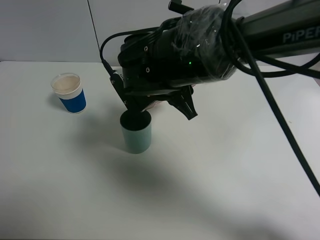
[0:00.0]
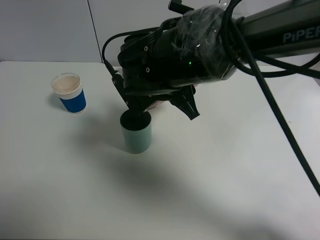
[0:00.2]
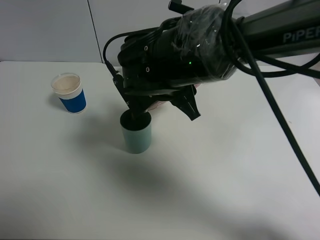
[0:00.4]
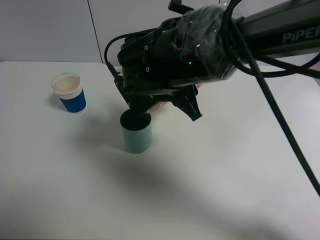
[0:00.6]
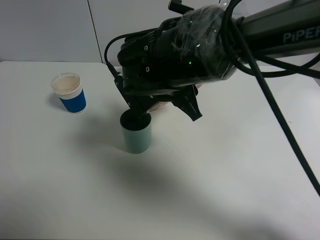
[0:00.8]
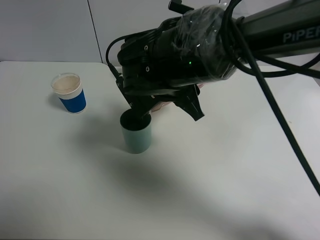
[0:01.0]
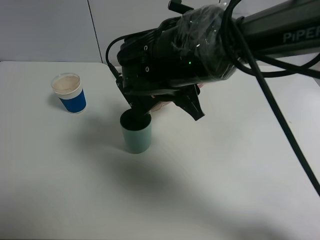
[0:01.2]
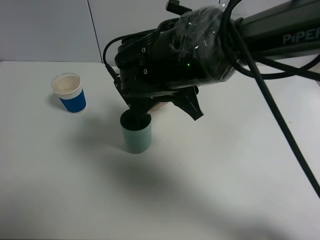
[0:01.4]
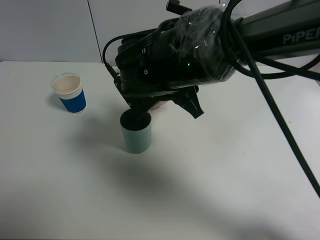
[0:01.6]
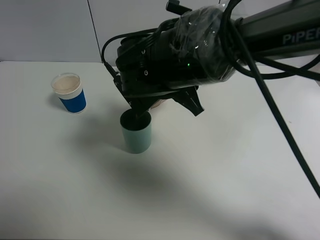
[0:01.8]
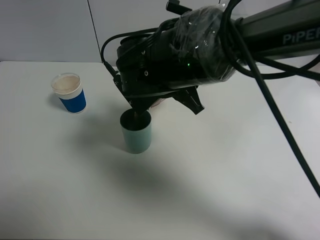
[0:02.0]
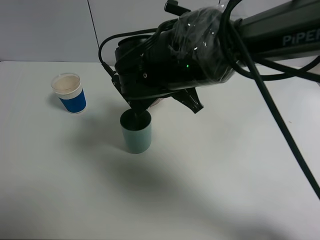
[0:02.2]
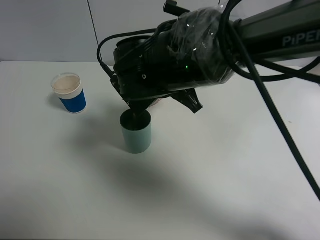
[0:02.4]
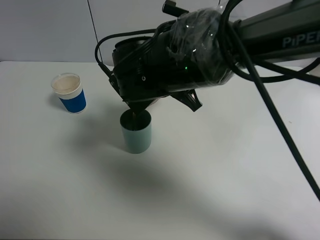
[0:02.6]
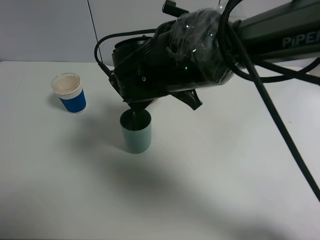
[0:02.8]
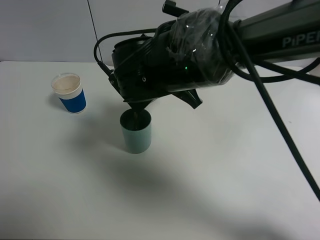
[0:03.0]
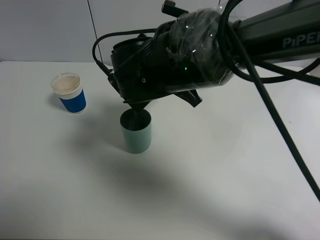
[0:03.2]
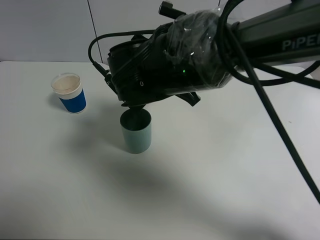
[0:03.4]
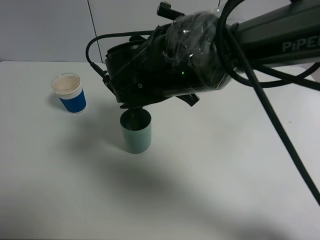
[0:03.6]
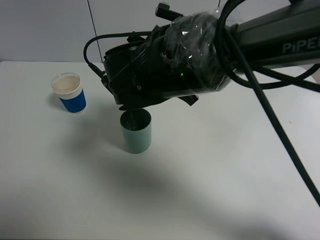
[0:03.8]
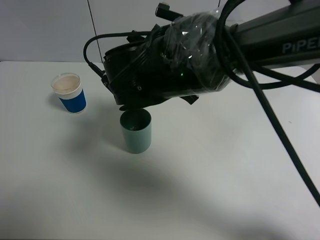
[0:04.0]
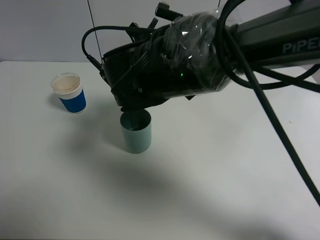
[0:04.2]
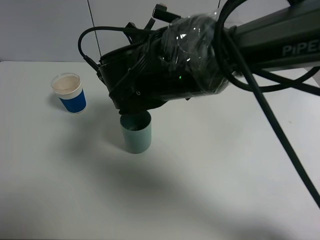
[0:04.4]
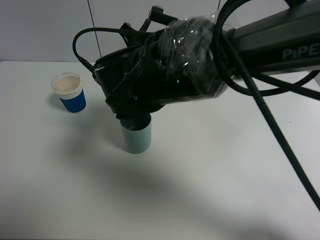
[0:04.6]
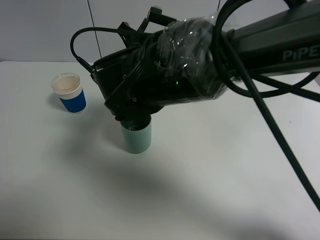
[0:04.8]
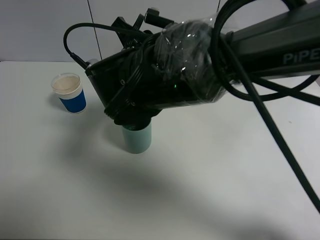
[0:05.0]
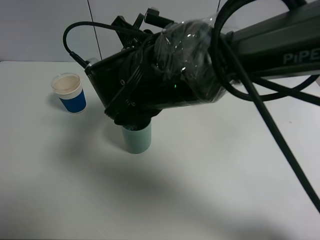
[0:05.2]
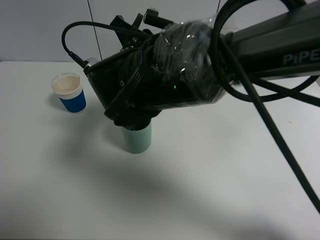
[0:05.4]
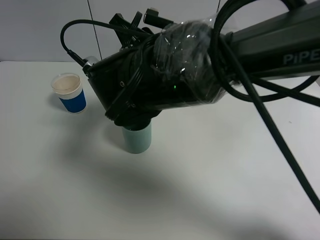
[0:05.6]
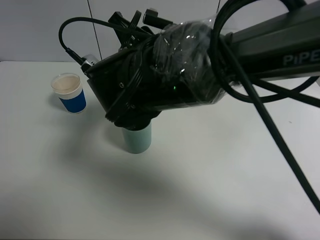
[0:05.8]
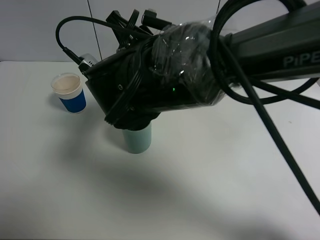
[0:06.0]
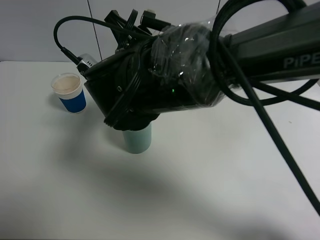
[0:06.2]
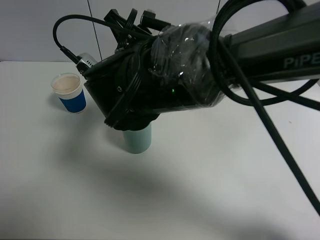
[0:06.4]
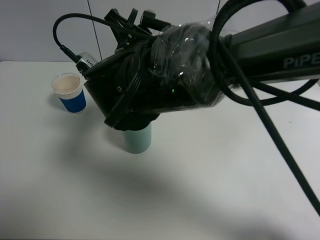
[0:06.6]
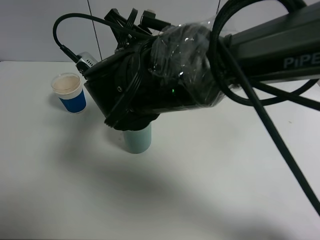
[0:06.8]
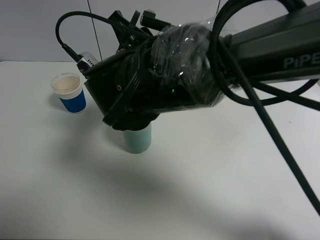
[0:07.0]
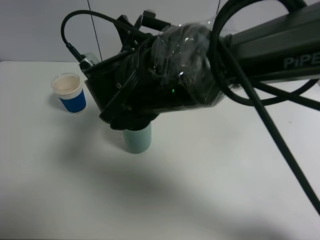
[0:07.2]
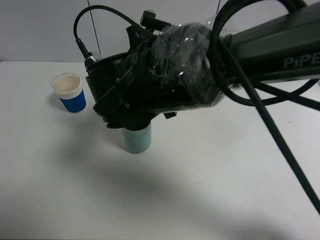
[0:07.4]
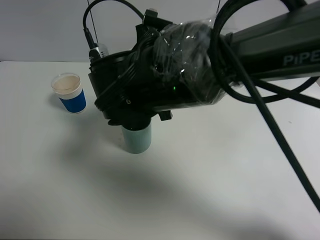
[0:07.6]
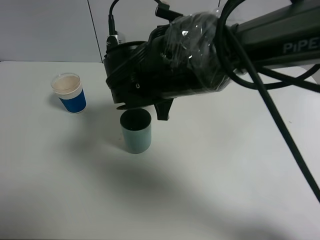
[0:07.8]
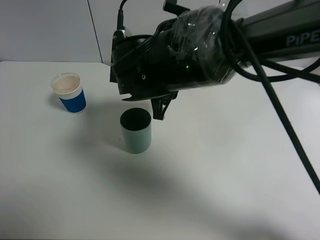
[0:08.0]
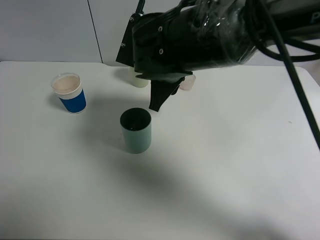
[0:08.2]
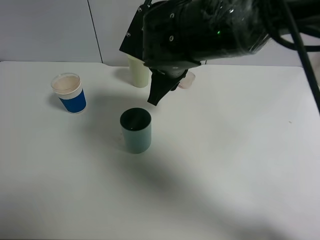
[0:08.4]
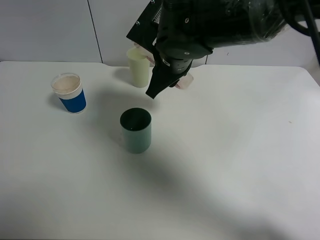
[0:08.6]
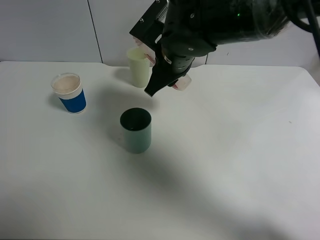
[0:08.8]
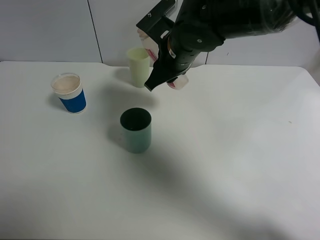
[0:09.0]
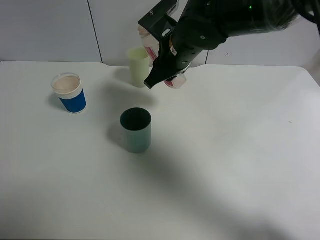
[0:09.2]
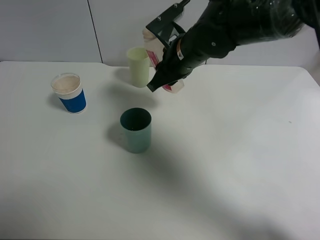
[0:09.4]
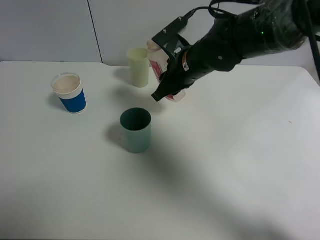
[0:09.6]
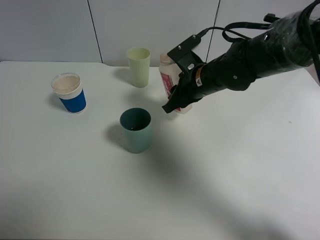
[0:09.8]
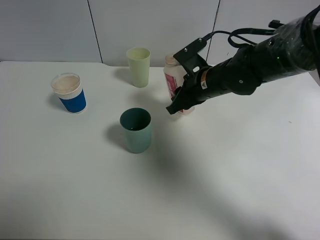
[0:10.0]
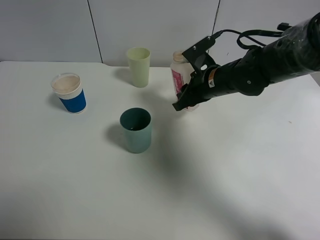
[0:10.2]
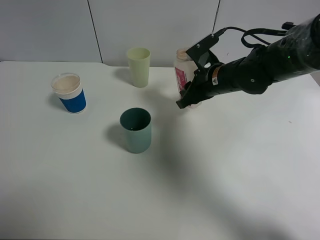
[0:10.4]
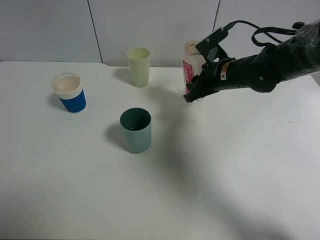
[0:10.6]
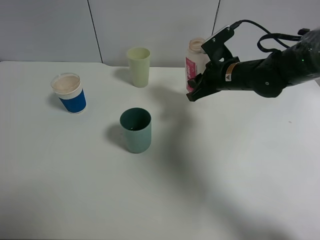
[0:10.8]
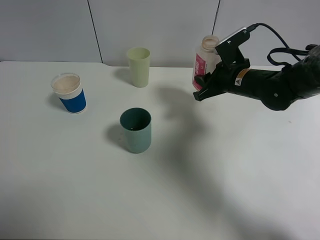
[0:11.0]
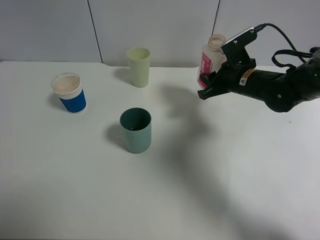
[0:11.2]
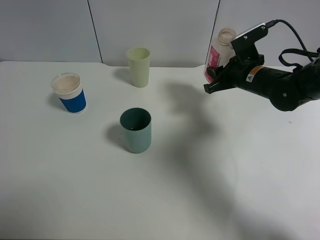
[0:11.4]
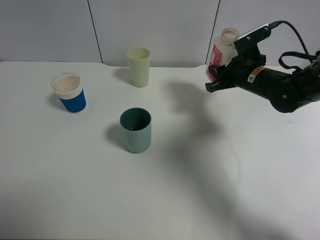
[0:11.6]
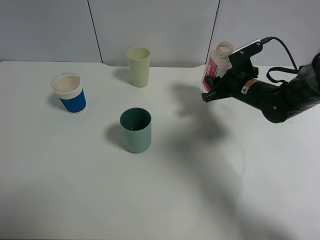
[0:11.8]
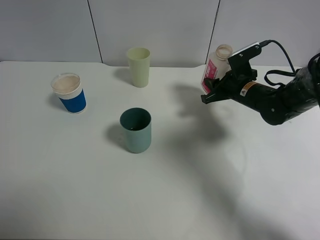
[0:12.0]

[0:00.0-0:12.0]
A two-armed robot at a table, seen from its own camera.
Task of the whole recording: use a clamp to hold the bottle of the drink, pour the beverage into a random cup, then clamp the cup containing the drink and pour the drink into another random cup.
Step, 0:00.0 to 0:06.6: Pour the drink into the blue plastic cup with right gripper.
0:00.0 to 0:01.6: Neither gripper changes place.
0:01.6 to 0:04.4: The grippers make only small movements.
0:04.4 to 0:06.0: The grippers make only small movements.
0:07.6 to 0:09.0: The right gripper shifts roughly 10 cm forward and to the right.
0:09.0 to 0:10.4: The right gripper moves to the right and downward, roughly 10 cm.
0:10.4 to 0:12.0: The right gripper travels to the right by about 10 cm.

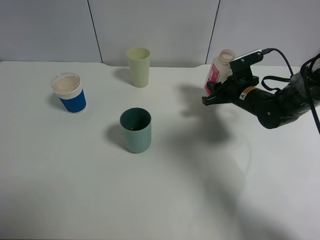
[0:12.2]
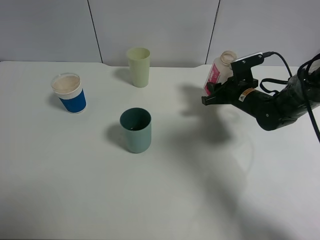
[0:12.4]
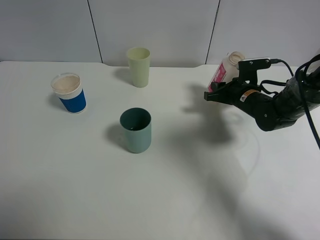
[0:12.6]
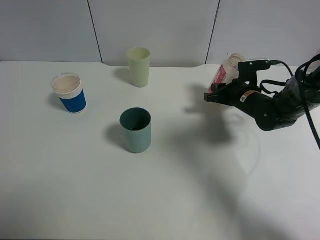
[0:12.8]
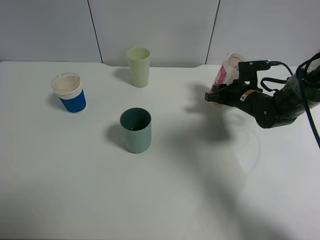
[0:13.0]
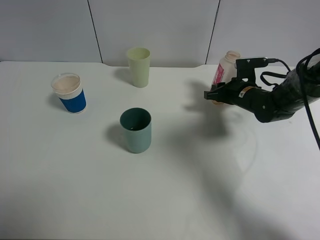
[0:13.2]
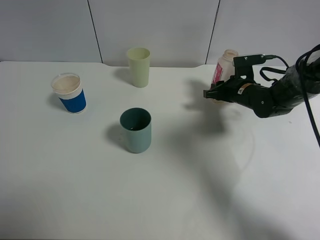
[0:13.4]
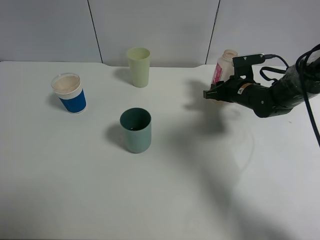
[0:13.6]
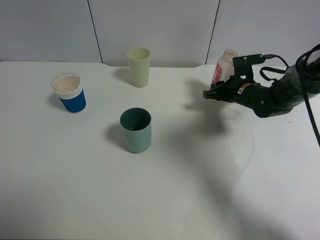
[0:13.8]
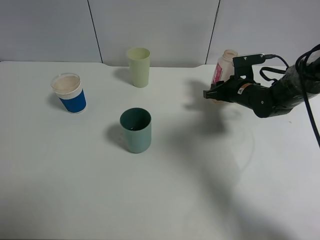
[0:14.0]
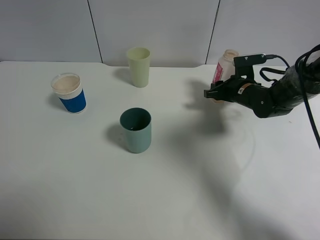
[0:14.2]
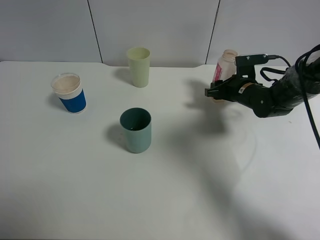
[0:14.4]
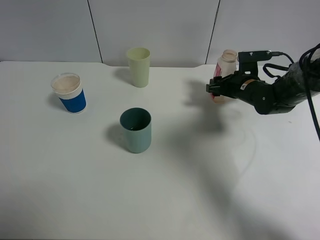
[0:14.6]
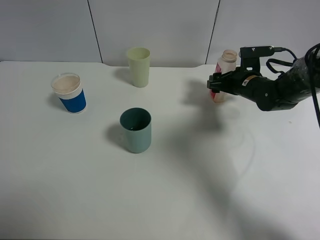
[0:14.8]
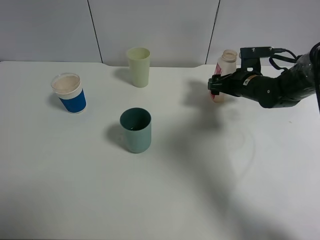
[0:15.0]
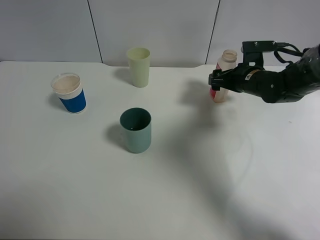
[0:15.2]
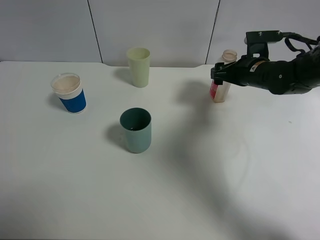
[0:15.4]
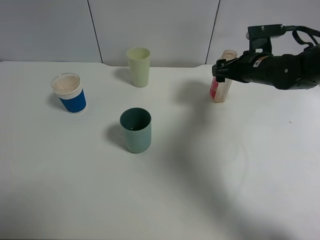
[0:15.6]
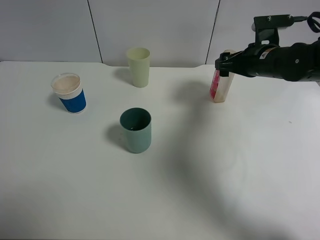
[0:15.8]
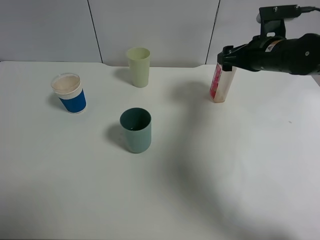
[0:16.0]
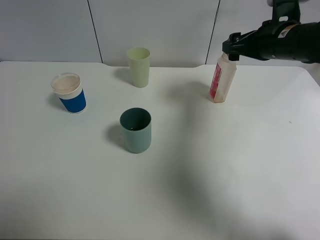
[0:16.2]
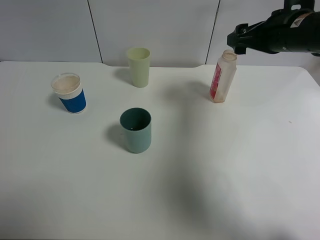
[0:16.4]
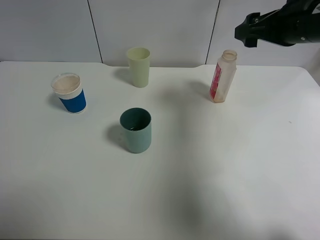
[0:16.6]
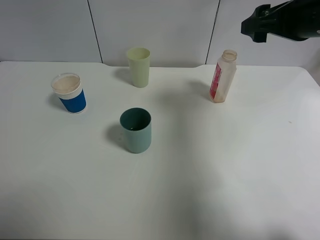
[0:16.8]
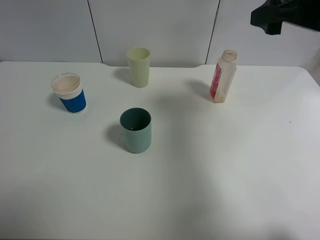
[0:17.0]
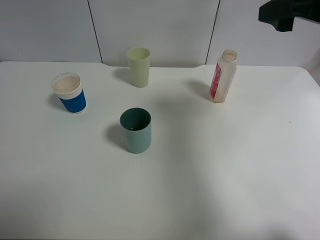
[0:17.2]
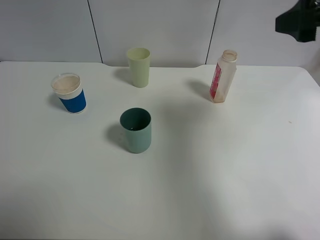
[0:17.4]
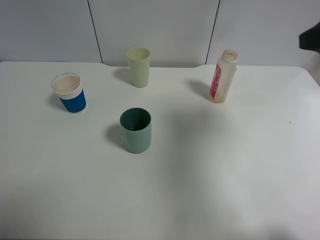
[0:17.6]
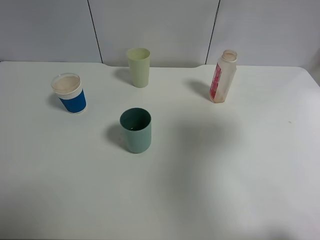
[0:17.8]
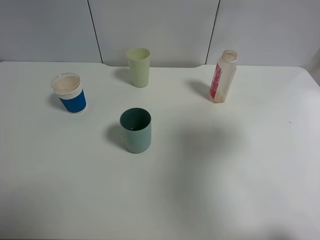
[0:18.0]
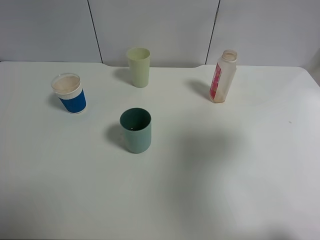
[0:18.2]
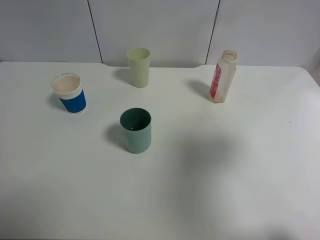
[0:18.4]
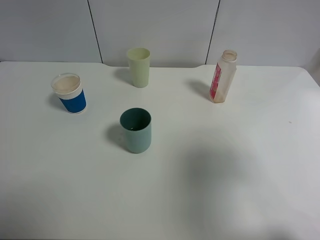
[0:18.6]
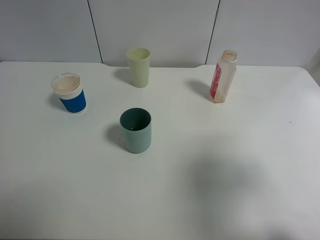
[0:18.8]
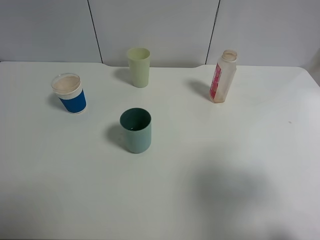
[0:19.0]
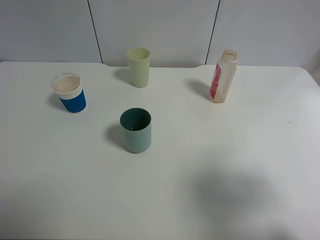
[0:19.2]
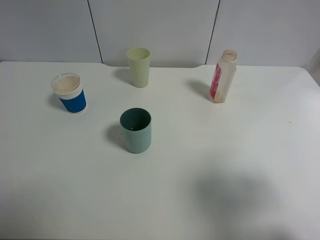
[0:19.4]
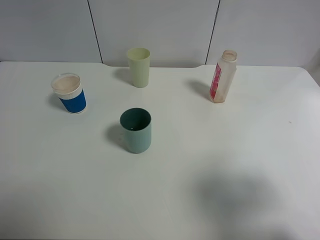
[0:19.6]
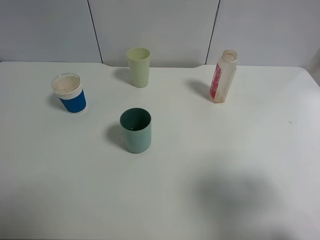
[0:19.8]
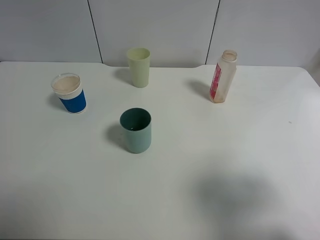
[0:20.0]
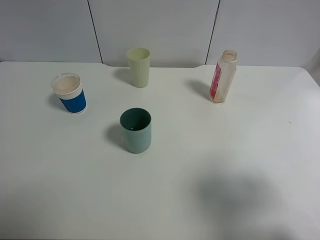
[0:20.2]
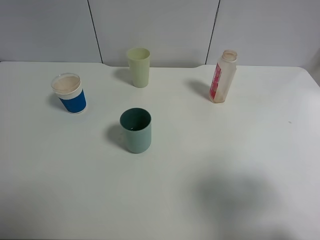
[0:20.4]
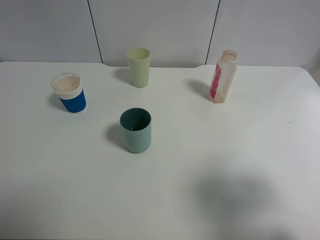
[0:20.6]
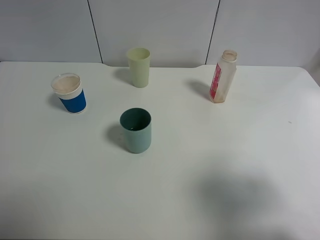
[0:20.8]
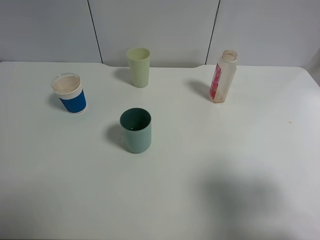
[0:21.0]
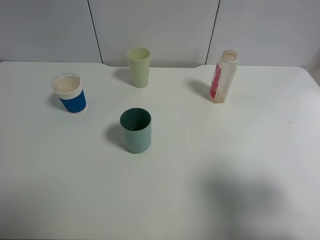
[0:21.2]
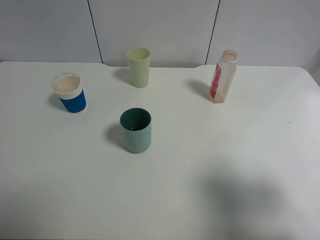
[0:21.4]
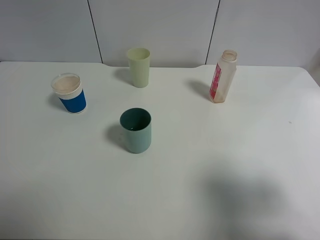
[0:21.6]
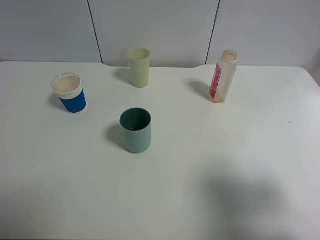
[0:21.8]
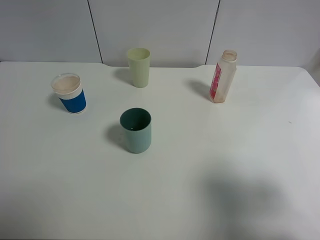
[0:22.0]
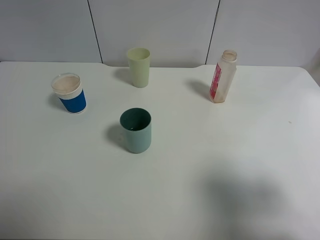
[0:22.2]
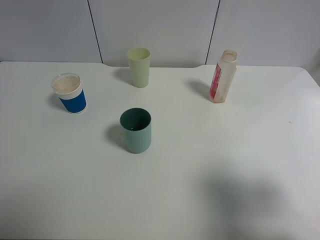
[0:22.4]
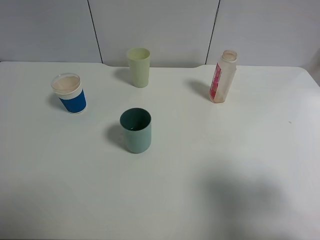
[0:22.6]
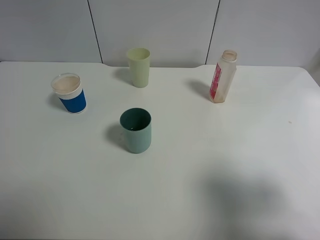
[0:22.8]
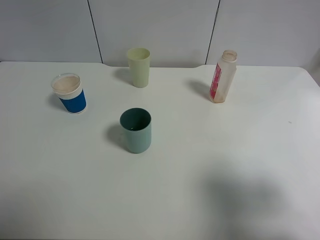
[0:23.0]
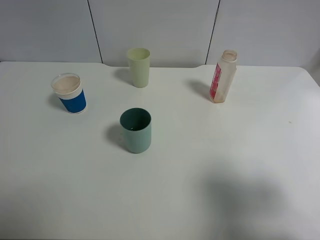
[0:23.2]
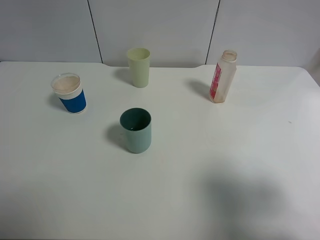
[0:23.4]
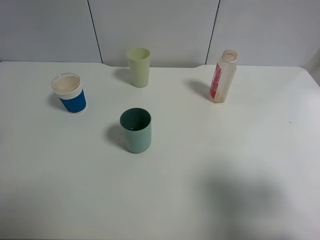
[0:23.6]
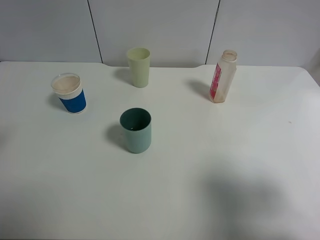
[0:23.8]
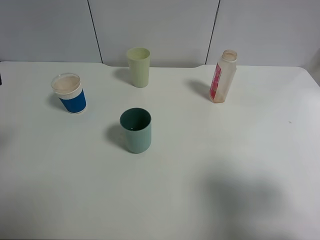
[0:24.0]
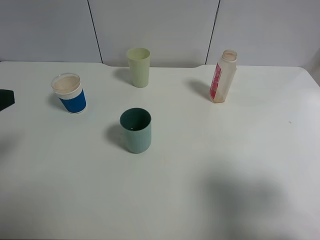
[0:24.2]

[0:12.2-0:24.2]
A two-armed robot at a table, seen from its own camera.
Task of the whole recording: use a clamp to hold the bottle of the drink, pour the beverage into a random cup, then clamp the cup containing the drink and pour the drink into another random cup.
Step, 0:12.2 to 0:14.6: Place the drink bottle on the table with right gripper.
0:12.2 to 0:13.8: The grippers stay close to where they were, moving slightly.
0:13.8 to 0:15.2: The right gripper opens.
0:15.2 to 0:16.6: The right gripper moves upward and backward, approximately 20 cm.
0:16.6 to 0:18.2: The right gripper travels backward by roughly 20 cm.
0:18.2 to 0:19.8: The right gripper shifts about 10 cm downward and backward.
0:21.2 to 0:22.6: Both grippers stay put.
